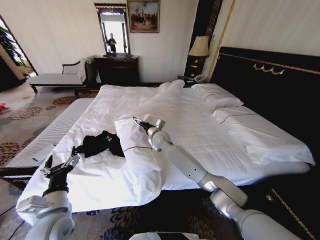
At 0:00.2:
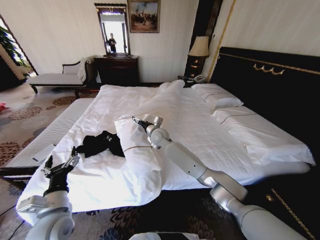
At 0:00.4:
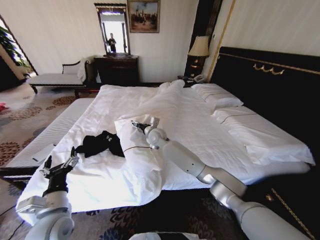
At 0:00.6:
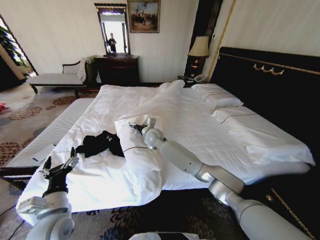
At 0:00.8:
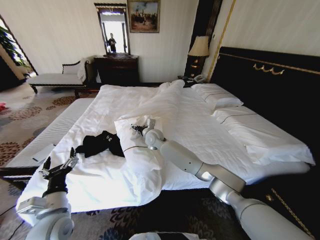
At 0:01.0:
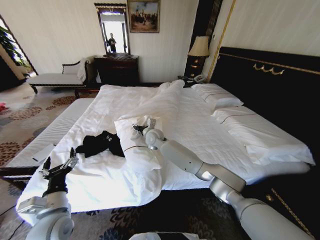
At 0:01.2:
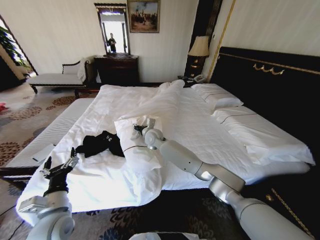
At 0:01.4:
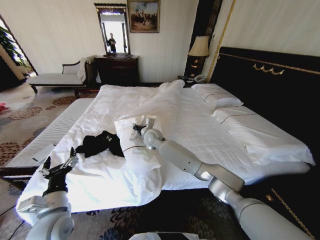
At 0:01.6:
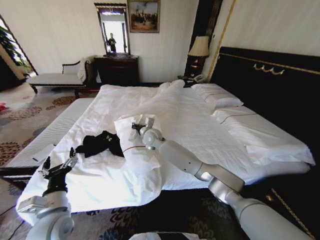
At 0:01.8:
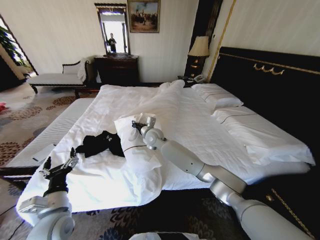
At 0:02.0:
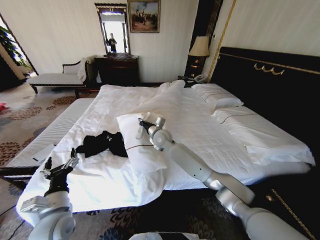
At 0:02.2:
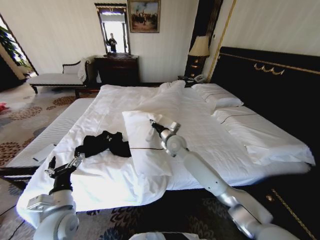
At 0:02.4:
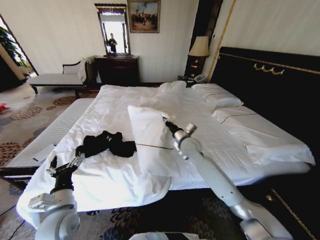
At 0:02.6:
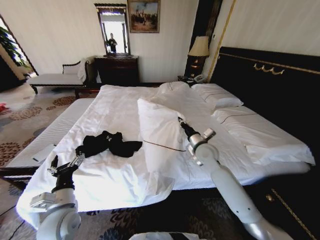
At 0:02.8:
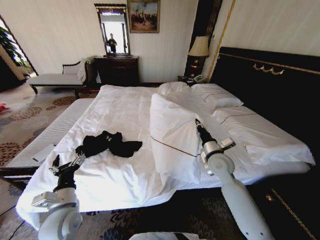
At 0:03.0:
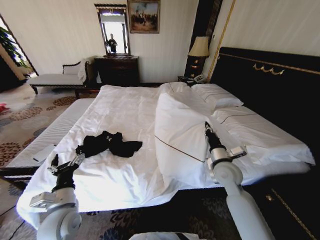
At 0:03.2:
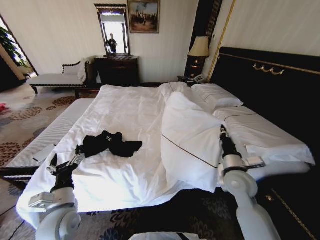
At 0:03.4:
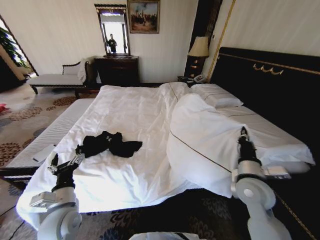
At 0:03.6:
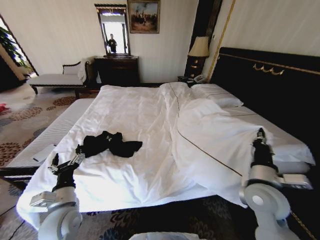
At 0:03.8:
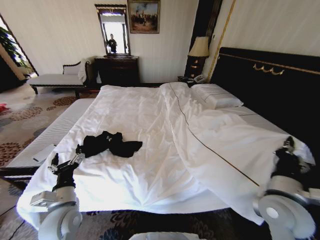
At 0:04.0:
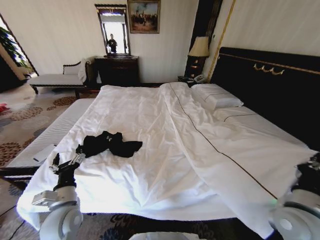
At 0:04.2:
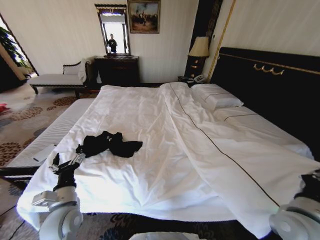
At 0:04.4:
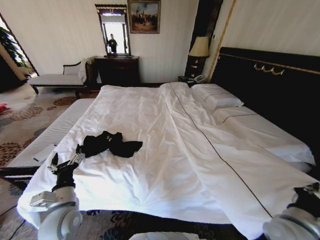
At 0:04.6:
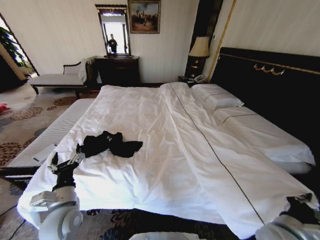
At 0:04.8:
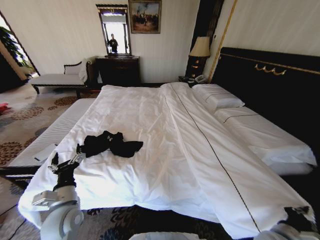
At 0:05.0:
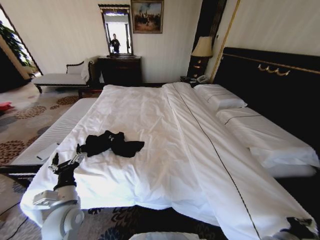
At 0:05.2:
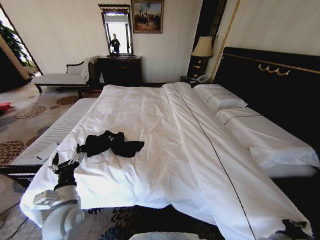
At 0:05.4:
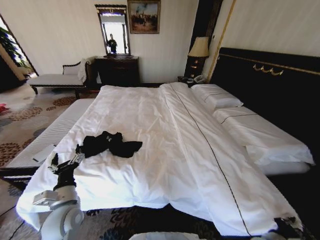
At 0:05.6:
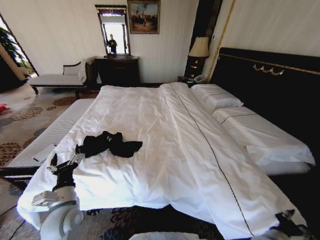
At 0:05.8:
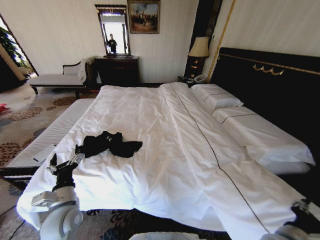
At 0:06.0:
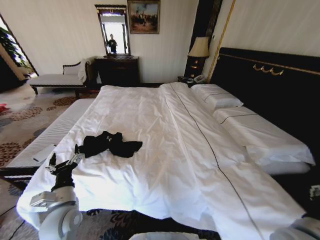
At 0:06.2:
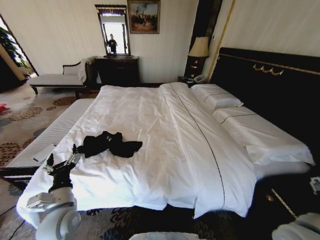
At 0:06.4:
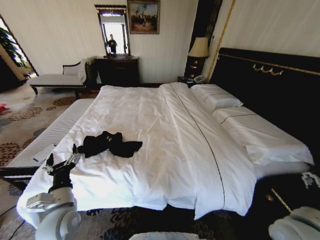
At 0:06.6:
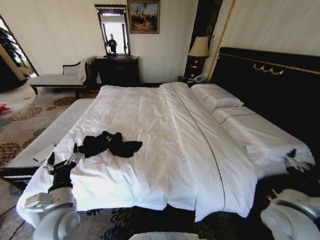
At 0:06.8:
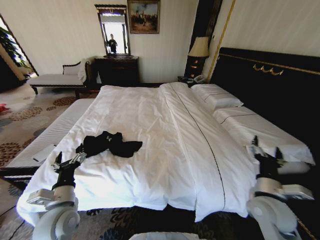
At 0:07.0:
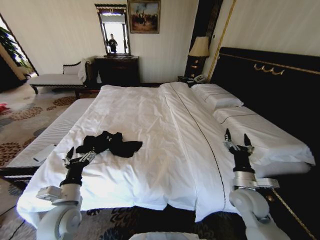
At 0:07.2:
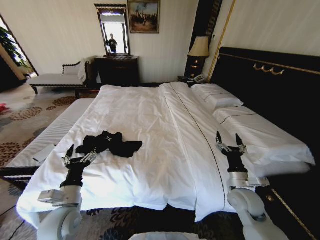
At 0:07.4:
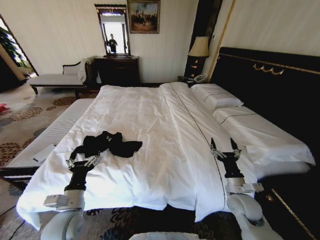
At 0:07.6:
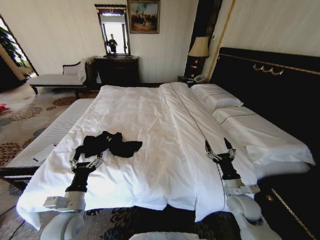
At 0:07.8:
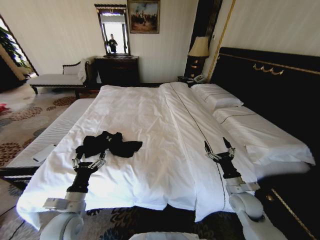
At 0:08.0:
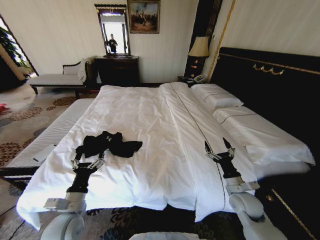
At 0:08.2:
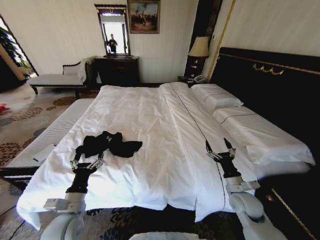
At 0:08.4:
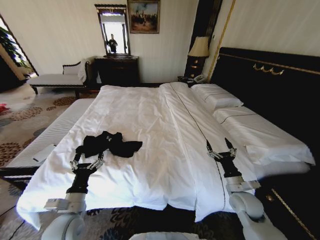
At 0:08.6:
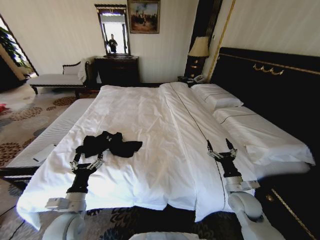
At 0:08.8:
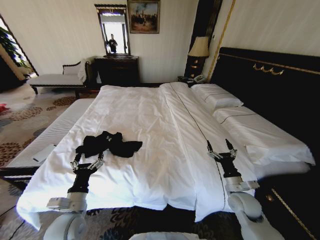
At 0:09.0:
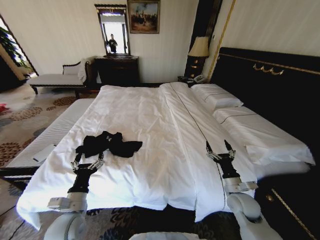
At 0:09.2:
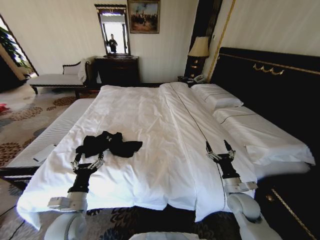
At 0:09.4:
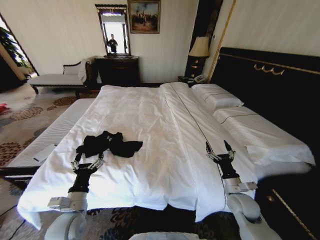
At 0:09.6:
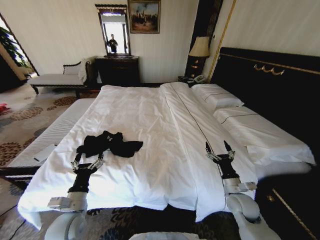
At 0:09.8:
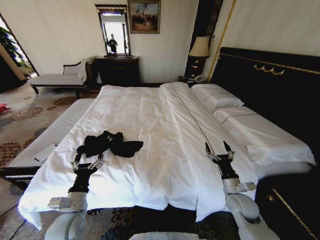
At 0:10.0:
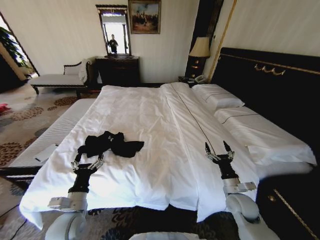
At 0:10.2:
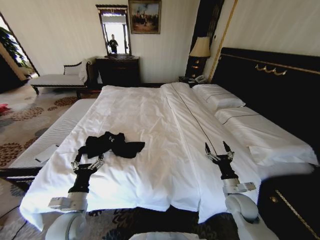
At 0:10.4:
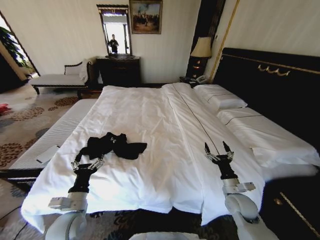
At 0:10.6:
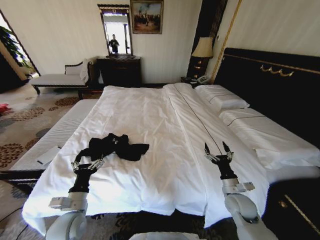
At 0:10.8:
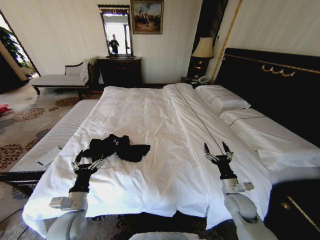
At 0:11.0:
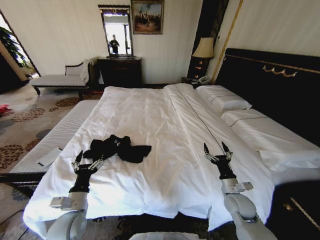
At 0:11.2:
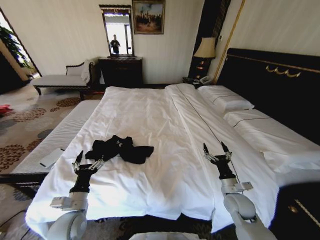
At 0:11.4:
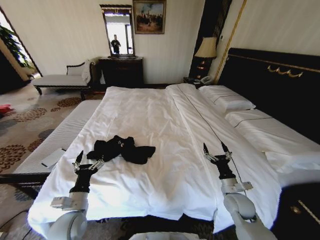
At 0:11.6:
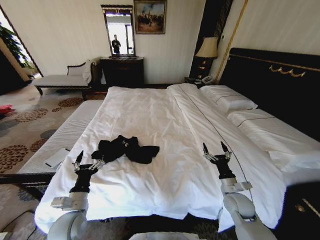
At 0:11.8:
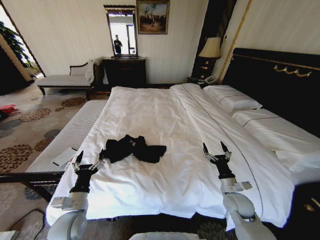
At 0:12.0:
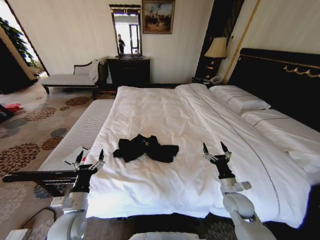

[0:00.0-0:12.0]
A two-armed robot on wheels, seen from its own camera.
Task of the whole recording: Fold the clothes on the bed.
0:00.0 to 0:01.6: The right gripper closes.
0:01.6 to 0:03.0: The right gripper moves to the right and backward, approximately 35 cm.
0:03.0 to 0:04.4: The right gripper heads backward and to the right, covering approximately 20 cm.
0:04.4 to 0:06.0: The right gripper moves approximately 10 cm downward and comes back, and opens.
0:06.0 to 0:07.6: The right gripper goes some 15 cm forward and downward.
0:07.6 to 0:09.0: The grippers move only a little.
0:09.0 to 0:10.4: Both grippers stay about where they are.

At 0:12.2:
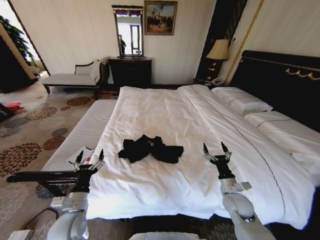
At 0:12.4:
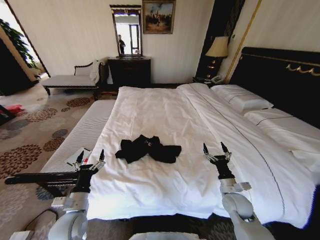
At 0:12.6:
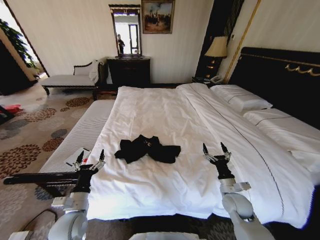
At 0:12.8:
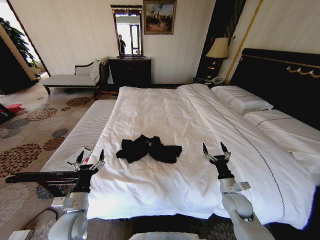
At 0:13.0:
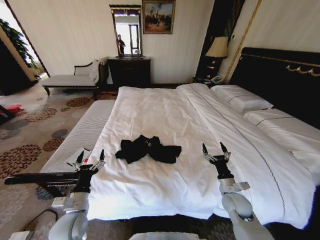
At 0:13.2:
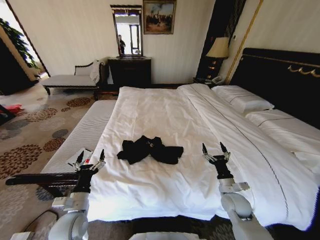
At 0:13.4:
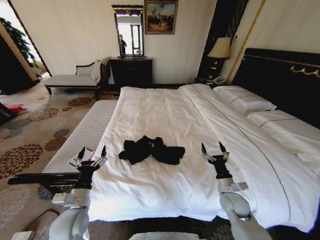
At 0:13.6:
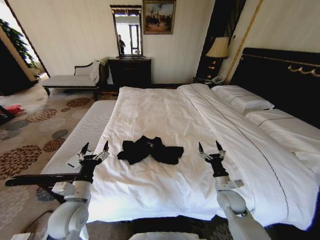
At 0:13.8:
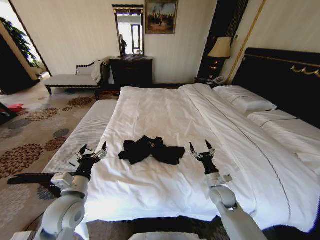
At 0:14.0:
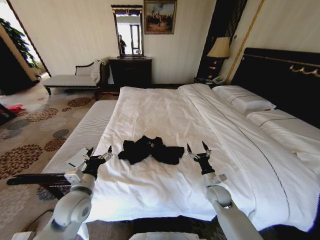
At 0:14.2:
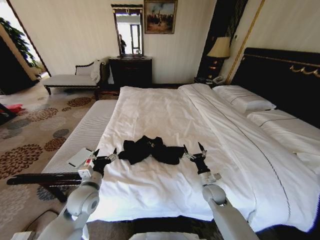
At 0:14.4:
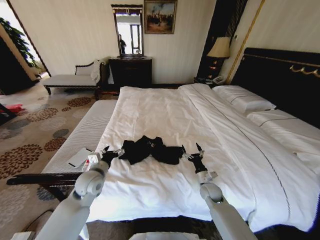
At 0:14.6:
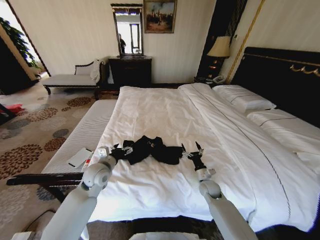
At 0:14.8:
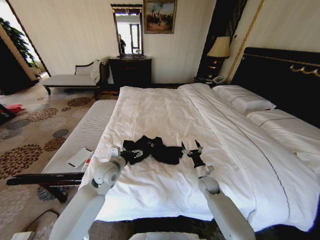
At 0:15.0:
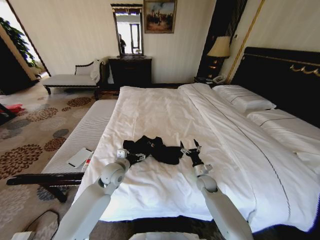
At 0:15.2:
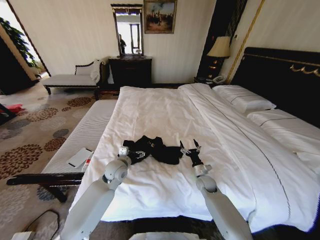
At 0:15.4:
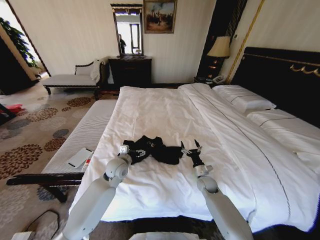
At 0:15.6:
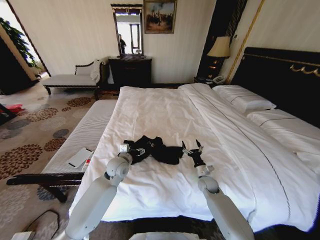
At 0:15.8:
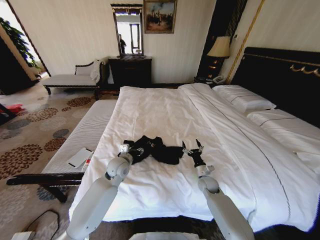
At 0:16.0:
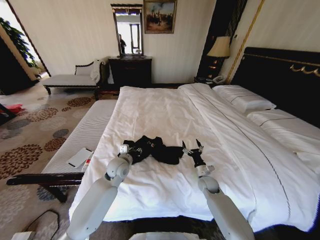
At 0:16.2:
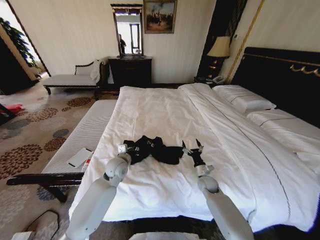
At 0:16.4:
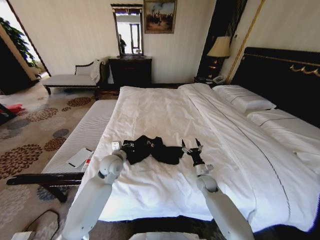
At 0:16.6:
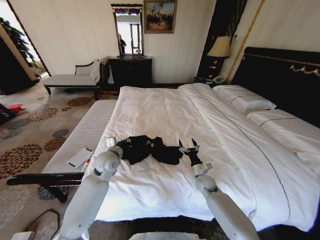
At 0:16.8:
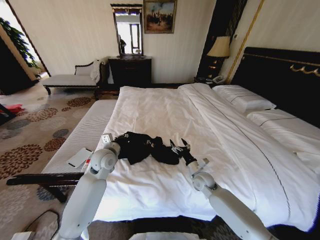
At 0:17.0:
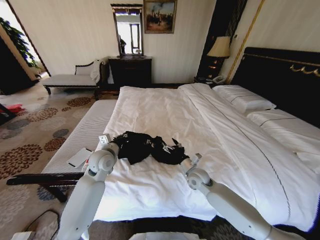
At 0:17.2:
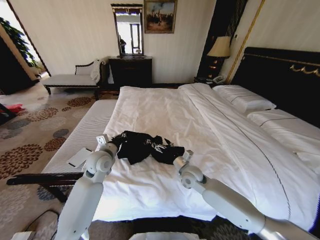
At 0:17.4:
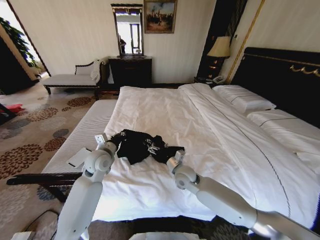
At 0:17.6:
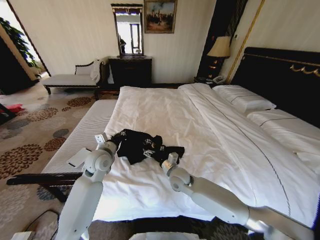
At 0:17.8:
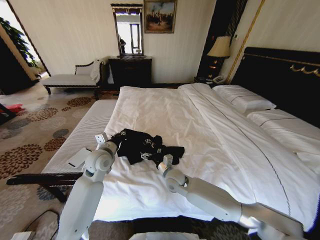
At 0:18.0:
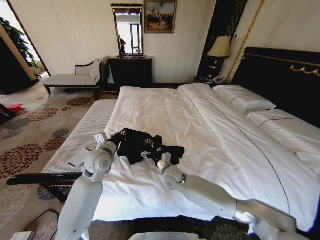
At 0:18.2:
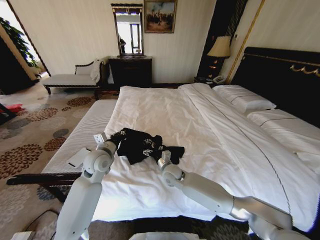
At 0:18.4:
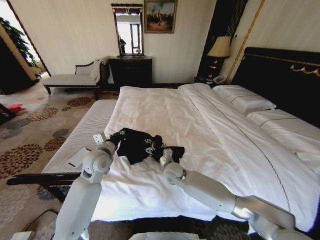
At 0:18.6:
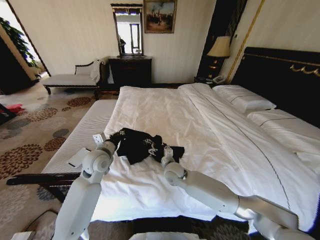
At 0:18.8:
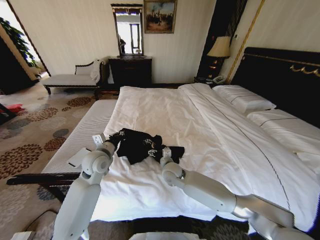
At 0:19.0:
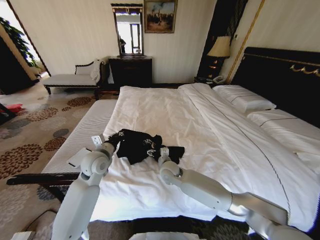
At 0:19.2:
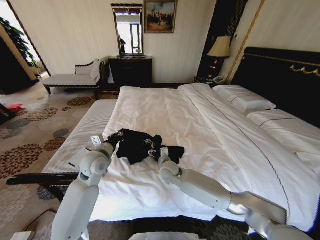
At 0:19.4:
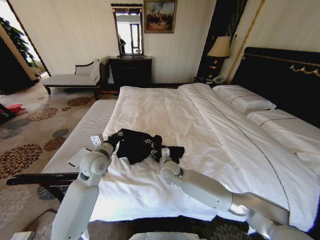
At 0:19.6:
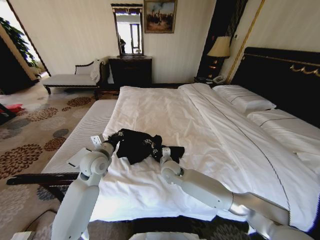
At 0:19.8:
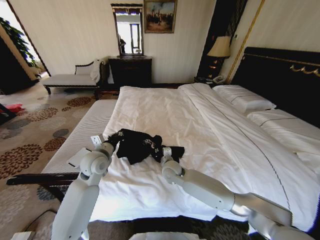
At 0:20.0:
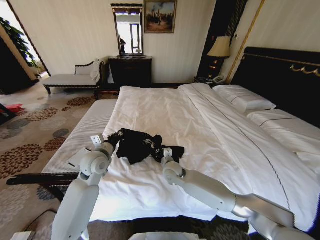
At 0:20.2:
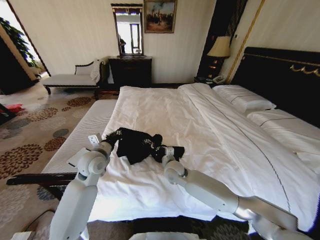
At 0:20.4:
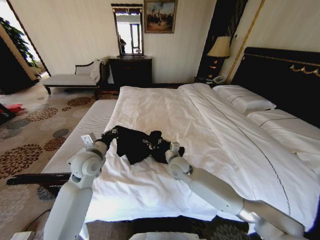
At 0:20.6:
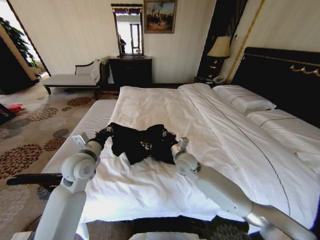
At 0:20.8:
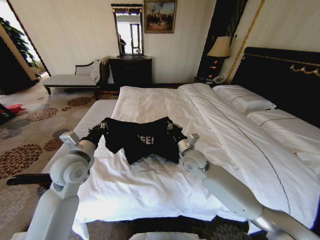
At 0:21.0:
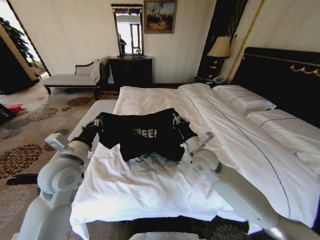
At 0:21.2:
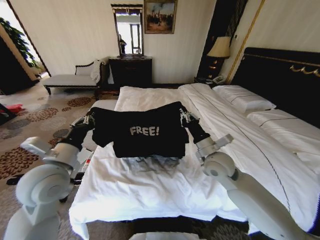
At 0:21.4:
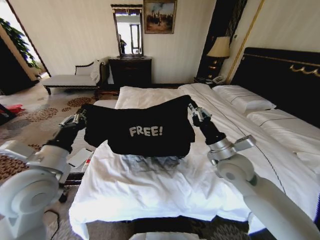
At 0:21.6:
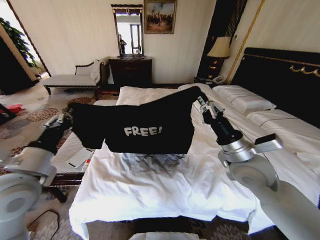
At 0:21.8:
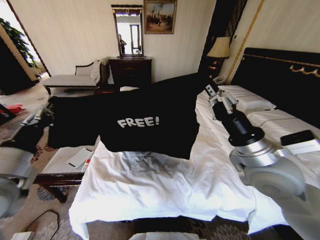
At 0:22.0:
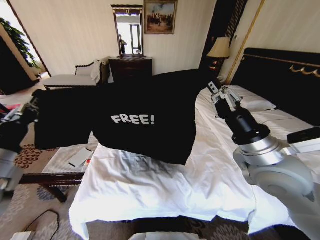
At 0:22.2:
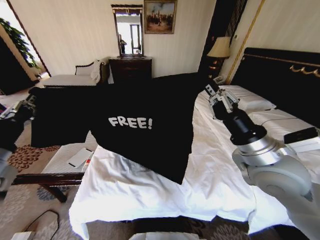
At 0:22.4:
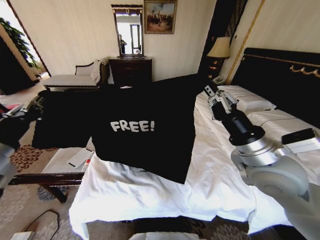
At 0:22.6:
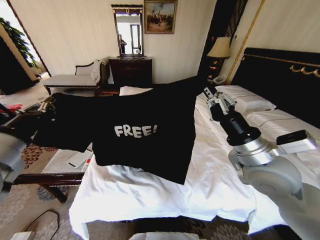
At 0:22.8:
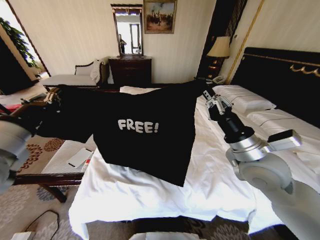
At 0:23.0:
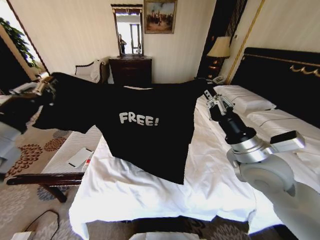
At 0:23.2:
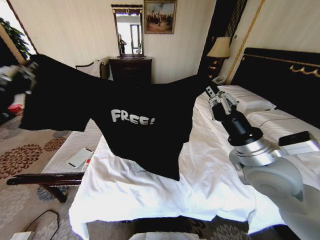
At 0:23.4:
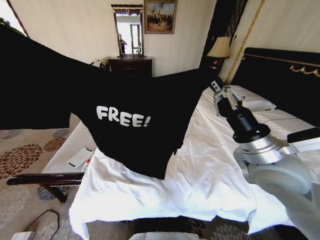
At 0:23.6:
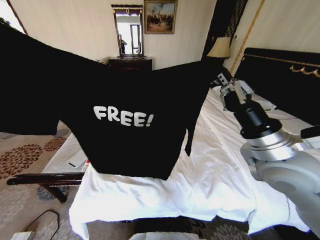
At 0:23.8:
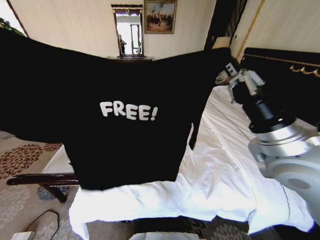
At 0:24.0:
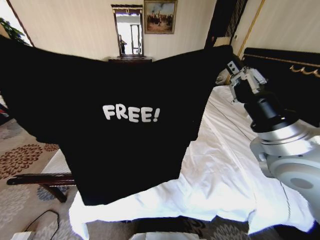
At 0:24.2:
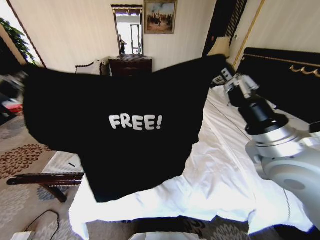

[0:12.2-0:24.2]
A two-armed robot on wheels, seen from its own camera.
Task of the whole recording: Fold the clothes on the bed.
0:12.2 to 0:13.8: The right gripper changes place by some 5 cm, while the left gripper moves upward, approximately 10 cm.
0:13.8 to 0:15.2: The right gripper goes about 10 cm forward and downward; the left gripper is displaced forward and to the right by roughly 20 cm.
0:15.2 to 0:16.6: The left gripper shifts by approximately 5 cm, and closes.
0:16.6 to 0:18.2: The right gripper travels to the left and upward by approximately 20 cm.
0:18.2 to 0:19.8: The right gripper closes.
0:19.8 to 0:21.2: The left gripper travels backward and upward by some 15 cm, while the right gripper travels to the right and upward by some 20 cm.
0:21.2 to 0:22.6: The left gripper travels upward and to the left by some 10 cm. The right gripper is displaced upward and backward by approximately 15 cm.
